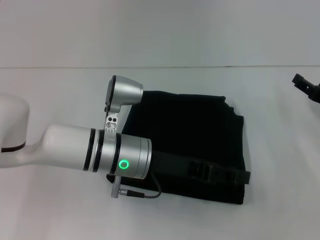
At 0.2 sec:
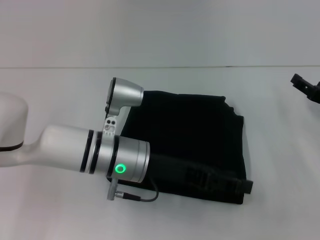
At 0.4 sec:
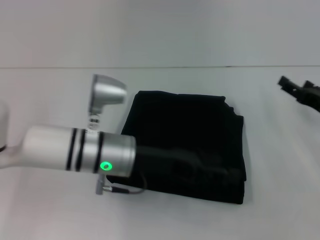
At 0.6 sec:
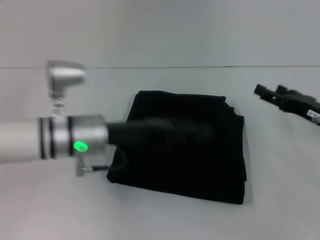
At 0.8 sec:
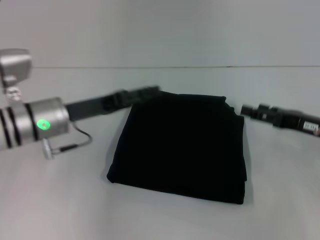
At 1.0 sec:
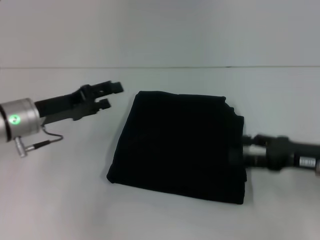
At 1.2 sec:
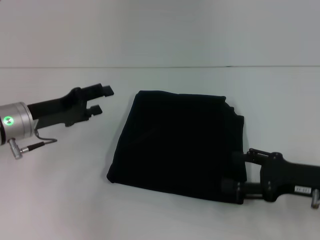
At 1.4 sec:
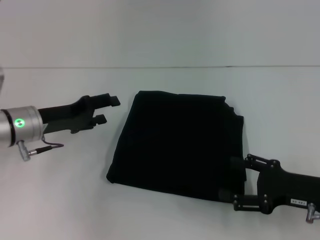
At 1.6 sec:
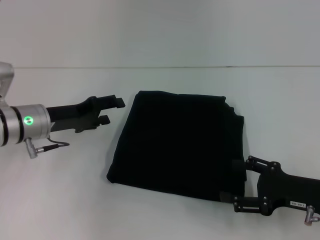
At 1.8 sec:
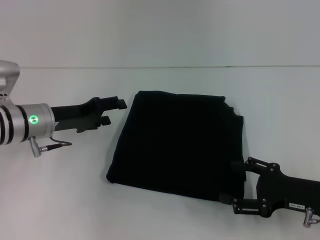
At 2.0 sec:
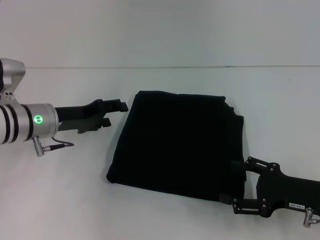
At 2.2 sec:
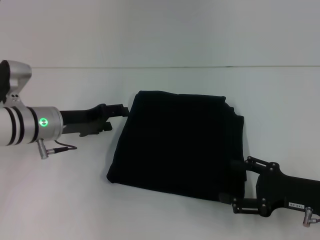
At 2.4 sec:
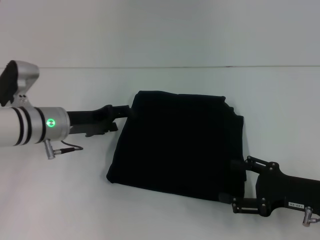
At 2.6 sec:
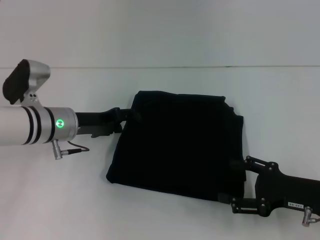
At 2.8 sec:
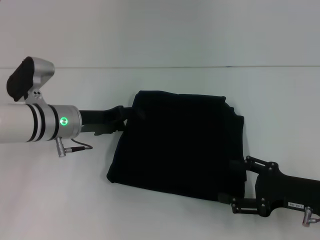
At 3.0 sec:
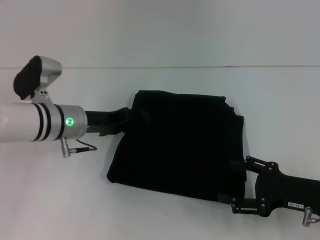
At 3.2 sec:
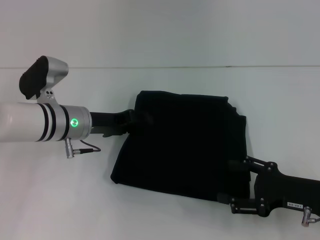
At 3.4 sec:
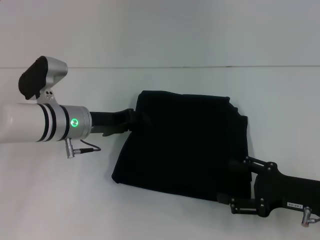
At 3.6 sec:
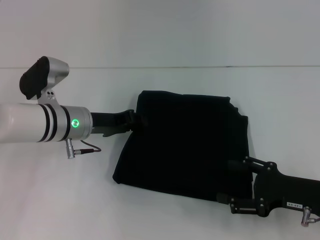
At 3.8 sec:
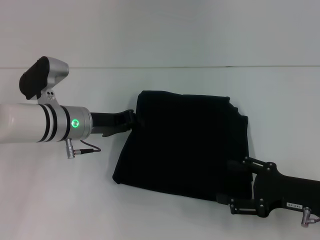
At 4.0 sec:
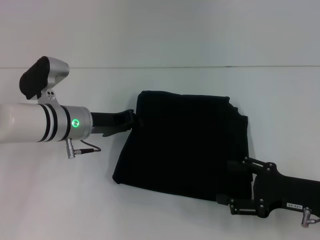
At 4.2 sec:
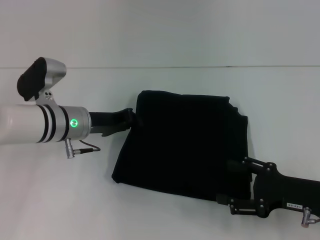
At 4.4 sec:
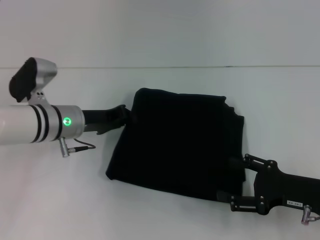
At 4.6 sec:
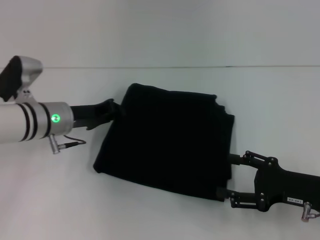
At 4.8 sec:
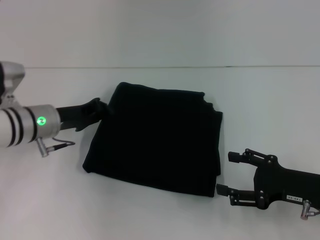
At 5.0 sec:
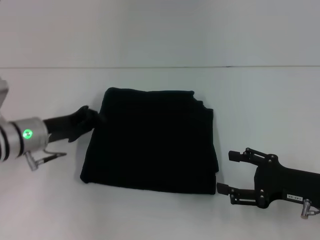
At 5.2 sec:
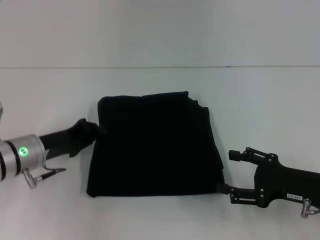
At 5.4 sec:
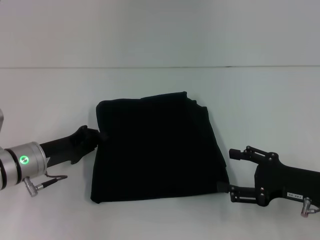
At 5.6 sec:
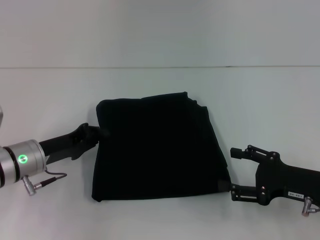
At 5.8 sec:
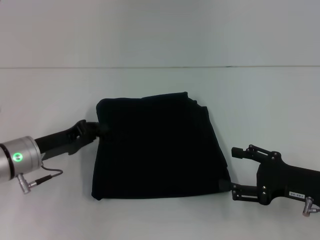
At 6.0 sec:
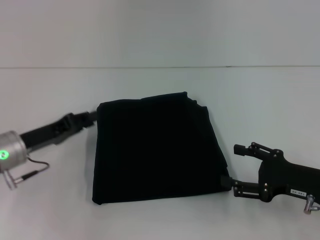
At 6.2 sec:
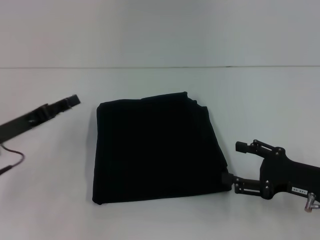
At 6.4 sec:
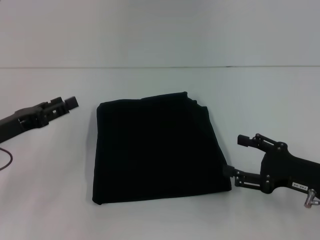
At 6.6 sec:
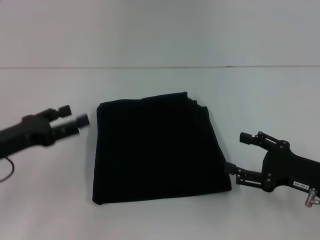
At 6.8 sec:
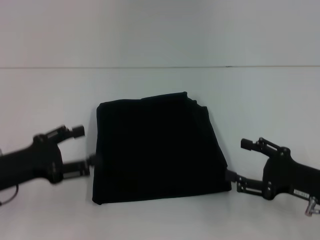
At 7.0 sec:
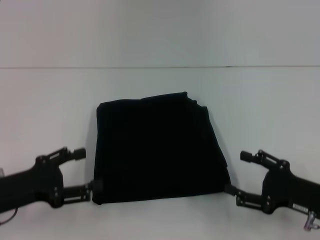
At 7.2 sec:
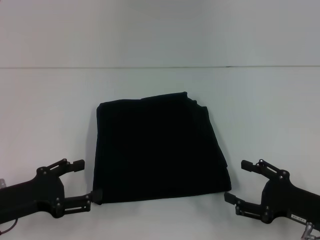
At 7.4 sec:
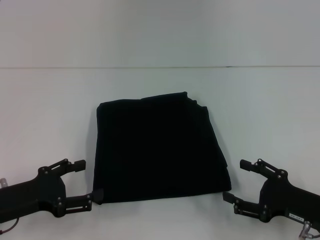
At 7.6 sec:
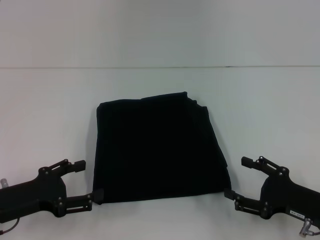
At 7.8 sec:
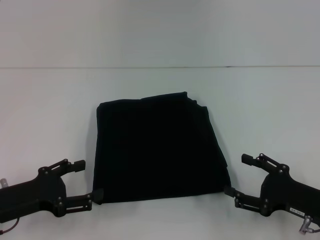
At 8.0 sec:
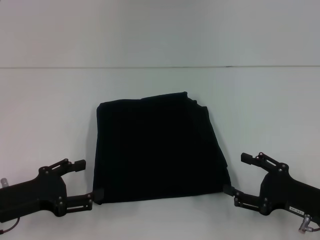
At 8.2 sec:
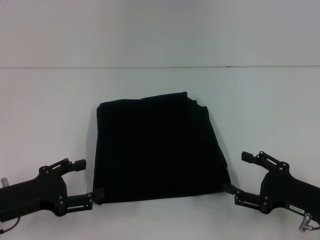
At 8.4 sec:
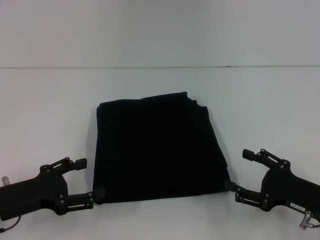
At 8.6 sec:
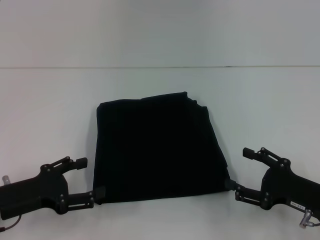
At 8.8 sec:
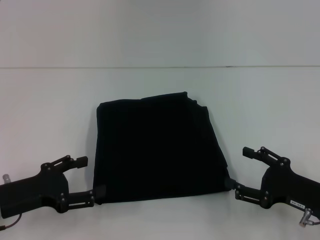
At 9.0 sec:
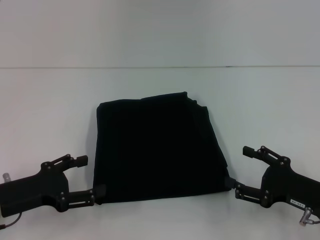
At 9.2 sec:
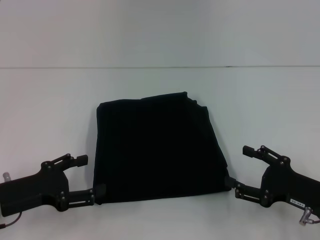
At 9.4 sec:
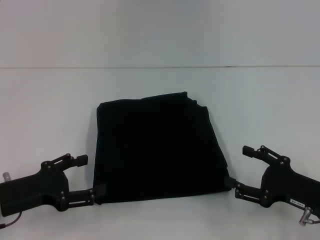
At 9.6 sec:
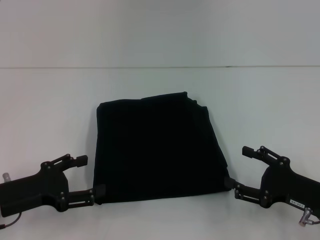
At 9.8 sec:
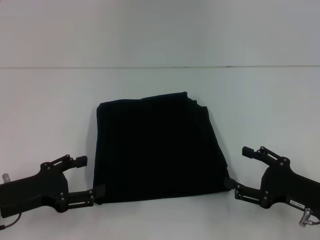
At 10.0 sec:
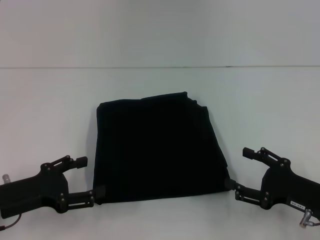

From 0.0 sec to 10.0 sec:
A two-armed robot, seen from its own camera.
From 0.0 sec to 1.4 sec: The right gripper travels backward and to the left by roughly 10 cm, while the left gripper is displaced to the left by approximately 15 cm, and opens.
From 1.4 sec to 2.8 sec: The left gripper heads to the right, covering roughly 5 cm.
From 2.8 sec to 4.2 sec: The left gripper closes.
From 4.2 sec to 5.8 sec: The left gripper moves to the left and backward, some 10 cm.
From 5.8 sec to 7.2 sec: The left gripper travels backward by approximately 10 cm, and opens.
From 7.2 sec to 8.6 sec: The two grippers keep their place.
From 8.6 sec to 10.0 sec: Both grippers stay put.

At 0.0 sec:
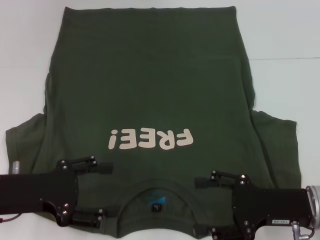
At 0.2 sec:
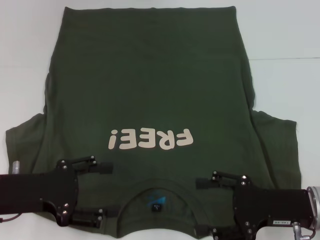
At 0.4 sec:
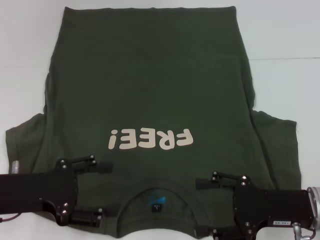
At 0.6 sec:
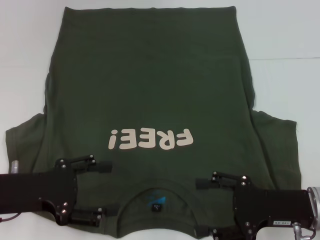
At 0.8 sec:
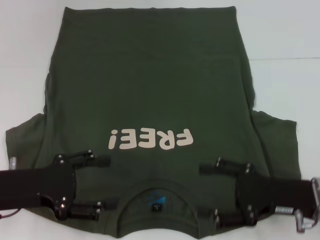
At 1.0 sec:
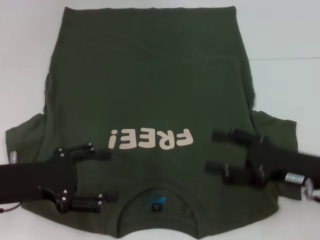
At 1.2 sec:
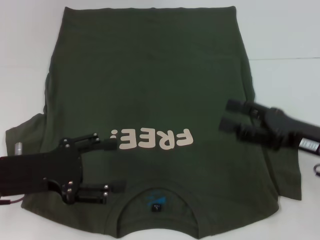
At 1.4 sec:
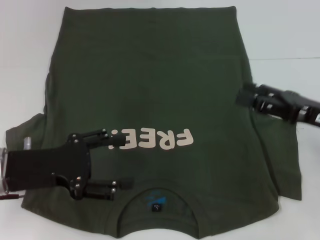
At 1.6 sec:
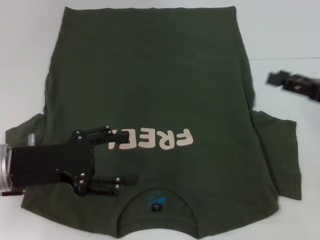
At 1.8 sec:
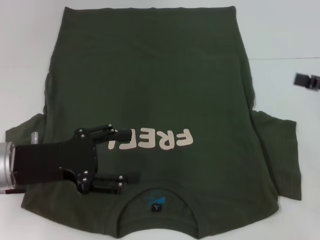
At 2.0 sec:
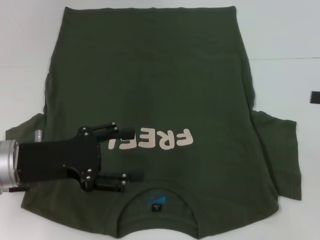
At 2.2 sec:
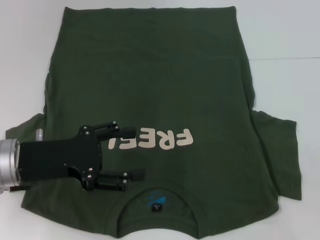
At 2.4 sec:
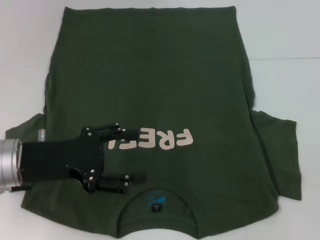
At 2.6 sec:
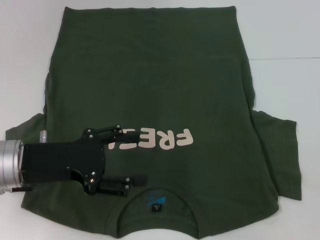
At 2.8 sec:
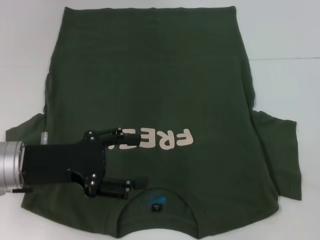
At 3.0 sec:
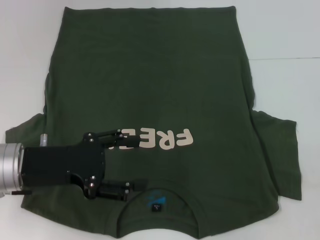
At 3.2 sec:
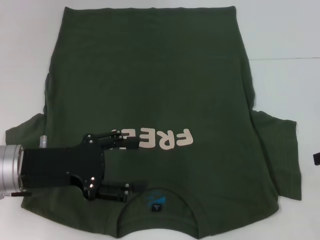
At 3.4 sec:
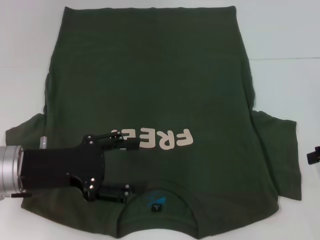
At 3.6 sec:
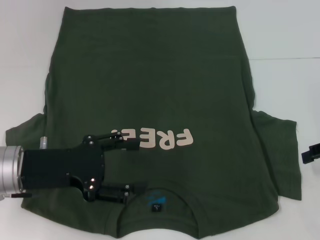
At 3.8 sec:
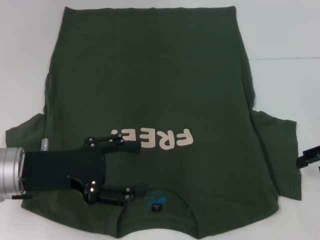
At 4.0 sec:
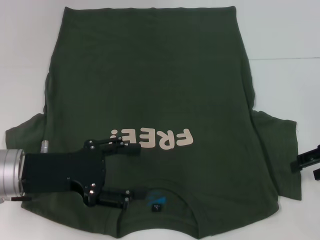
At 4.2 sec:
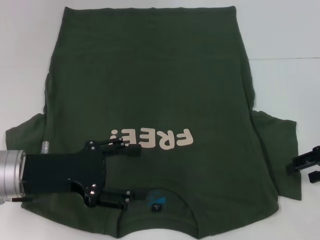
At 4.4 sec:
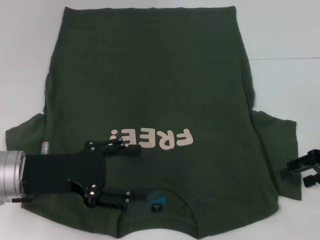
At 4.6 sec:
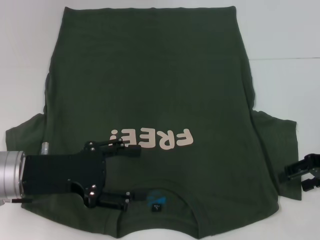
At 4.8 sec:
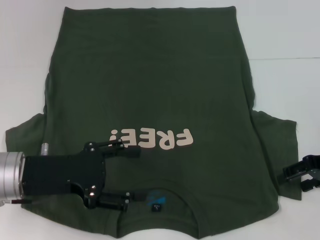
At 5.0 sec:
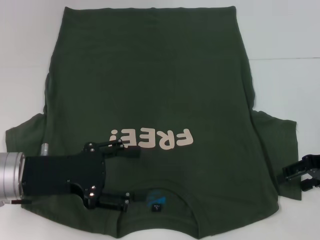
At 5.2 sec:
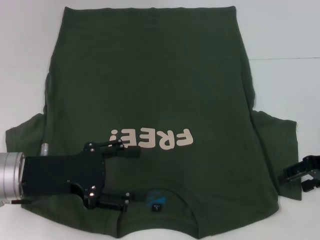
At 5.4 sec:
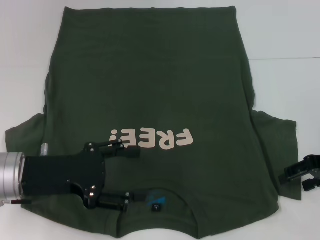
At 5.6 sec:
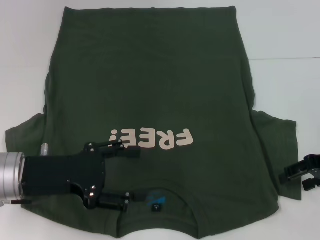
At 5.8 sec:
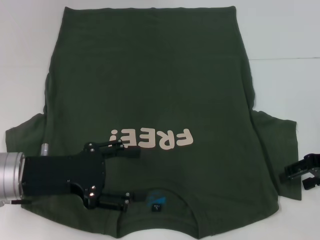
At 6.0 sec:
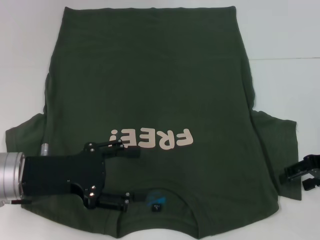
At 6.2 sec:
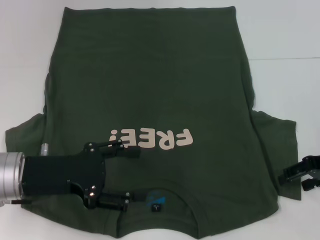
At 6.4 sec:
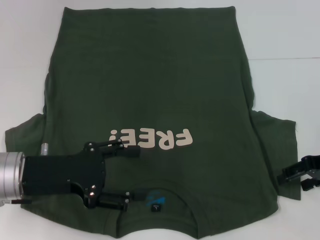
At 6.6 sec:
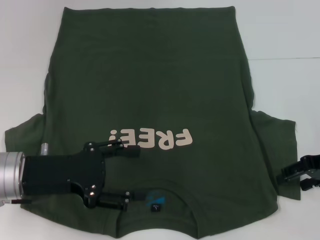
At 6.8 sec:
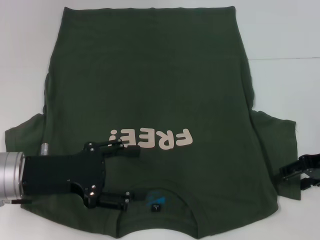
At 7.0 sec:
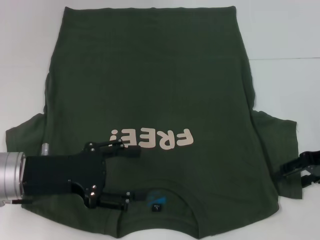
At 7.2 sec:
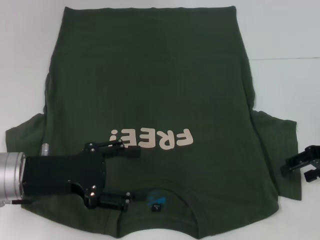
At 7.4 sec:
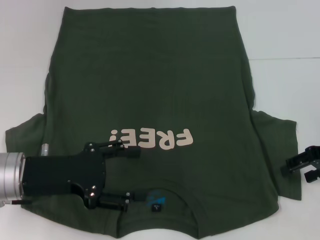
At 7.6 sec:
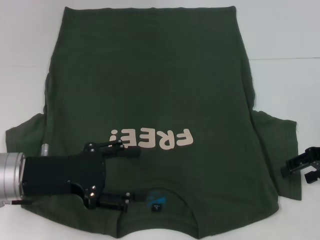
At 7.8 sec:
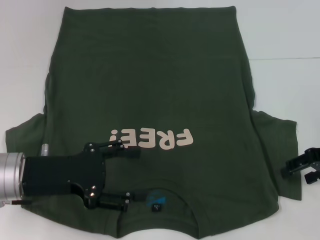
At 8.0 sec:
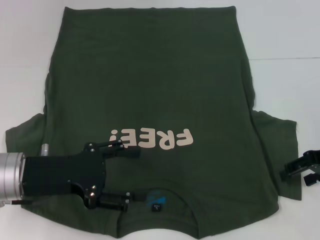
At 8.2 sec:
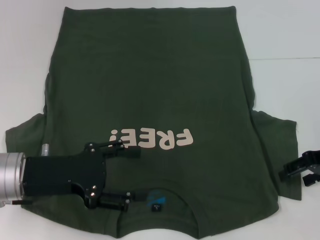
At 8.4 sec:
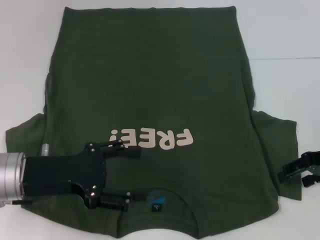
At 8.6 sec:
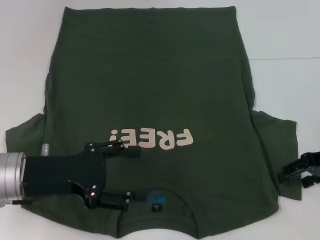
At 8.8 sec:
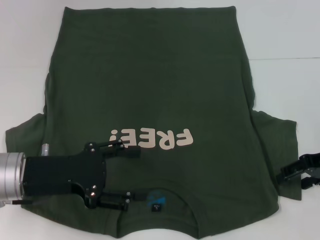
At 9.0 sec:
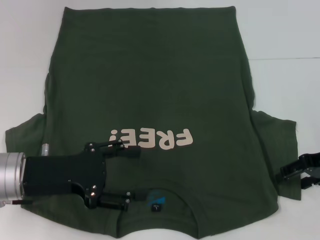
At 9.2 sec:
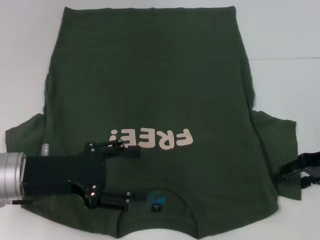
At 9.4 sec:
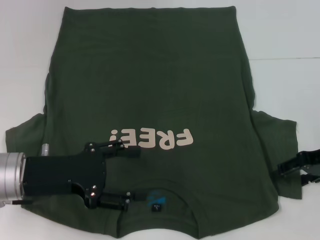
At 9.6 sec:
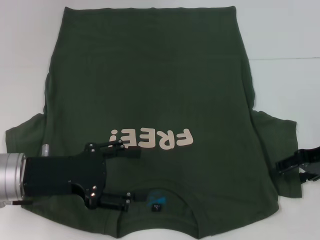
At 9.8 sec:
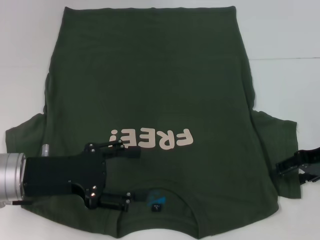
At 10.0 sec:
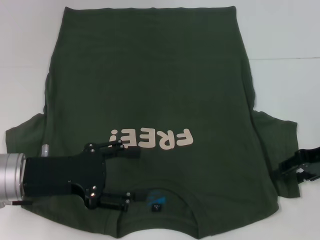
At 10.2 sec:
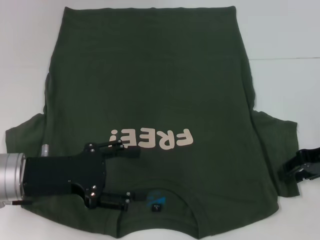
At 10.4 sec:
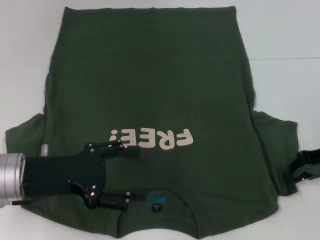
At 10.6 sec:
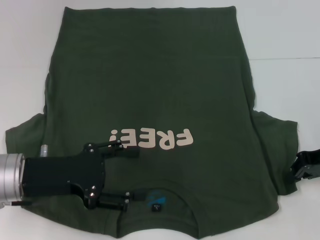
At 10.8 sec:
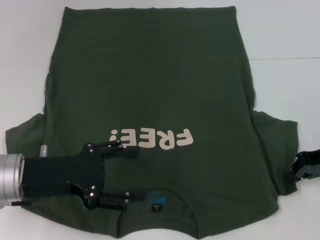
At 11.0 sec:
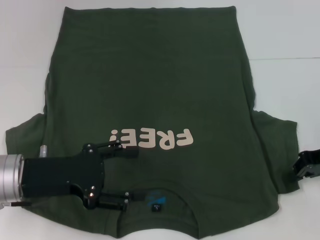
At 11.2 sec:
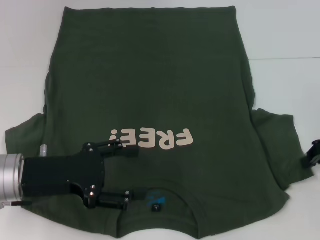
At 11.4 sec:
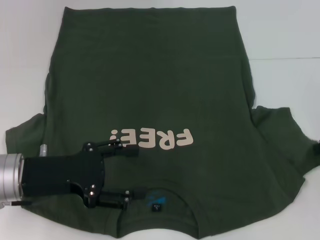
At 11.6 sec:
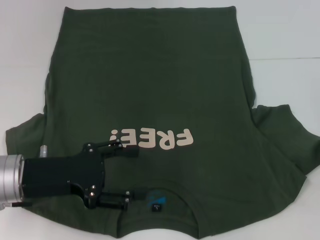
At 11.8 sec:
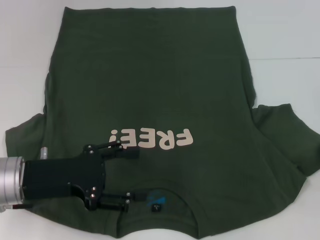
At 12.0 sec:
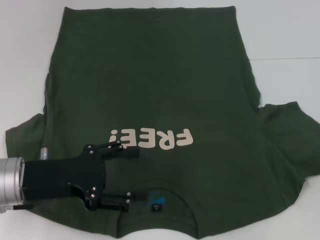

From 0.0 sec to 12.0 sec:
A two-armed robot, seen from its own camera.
From 0.0 sec to 1.6 sec: The right gripper shifts approximately 15 cm to the right, upward and forward.
From 3.0 sec to 4.4 sec: The right gripper shifts by some 5 cm.
From 4.4 sec to 6.0 sec: The two grippers keep their place.
From 6.0 sec to 9.0 sec: There are only small adjustments of the grippers.
From 9.0 sec to 10.4 sec: The right gripper closes its fingers.
From 10.4 sec to 12.0 sec: The right gripper is displaced to the right by some 5 cm.
